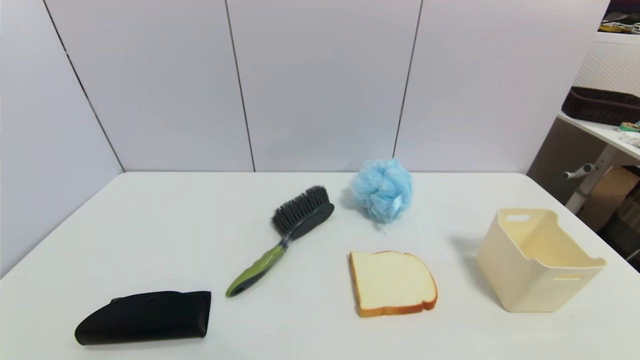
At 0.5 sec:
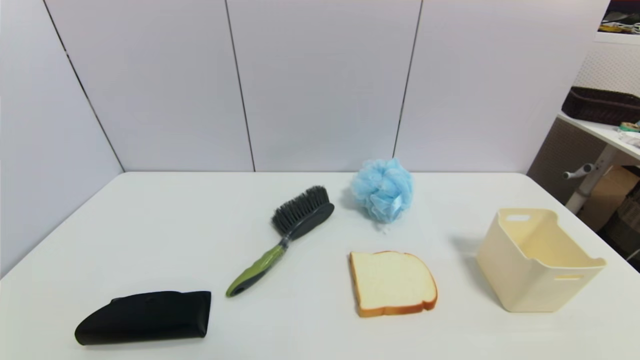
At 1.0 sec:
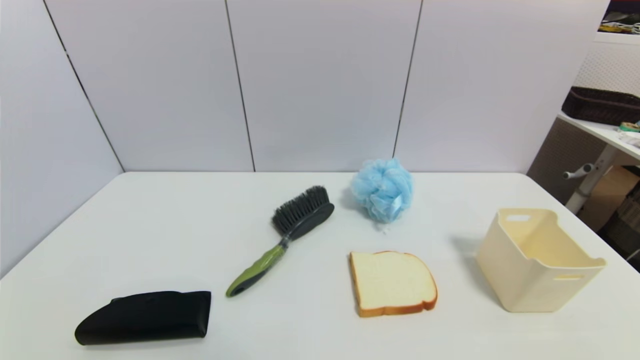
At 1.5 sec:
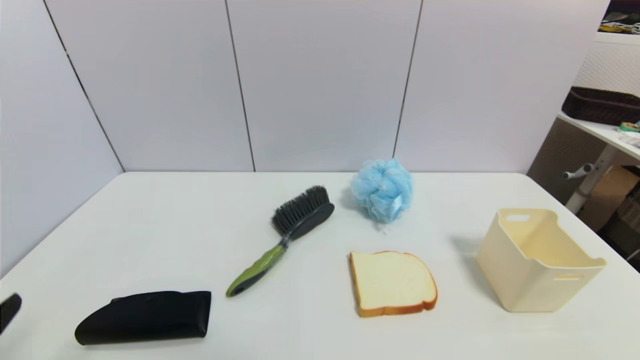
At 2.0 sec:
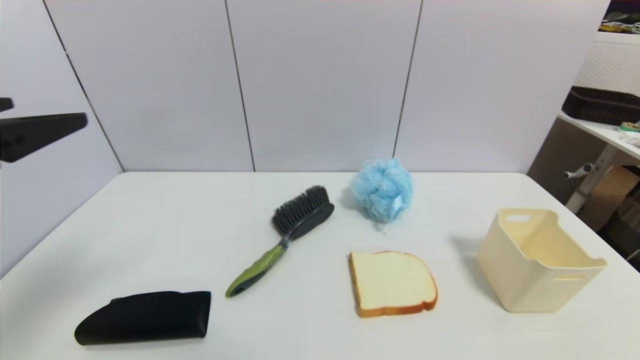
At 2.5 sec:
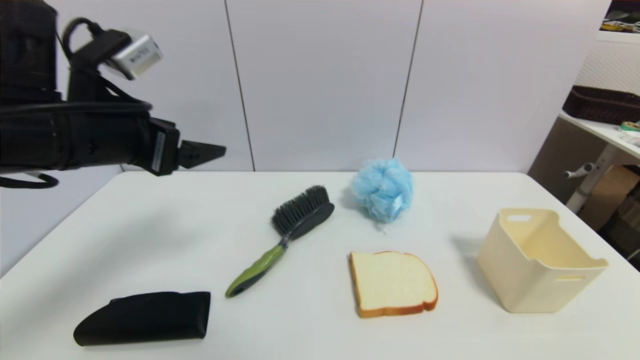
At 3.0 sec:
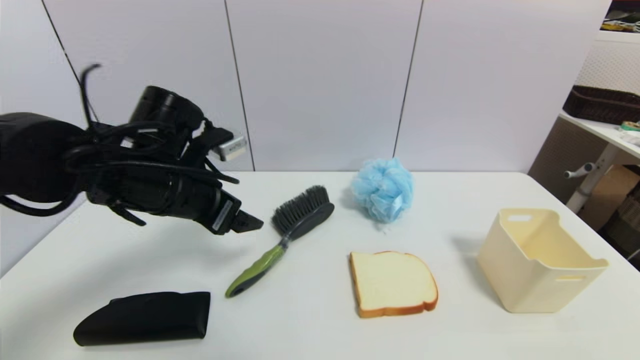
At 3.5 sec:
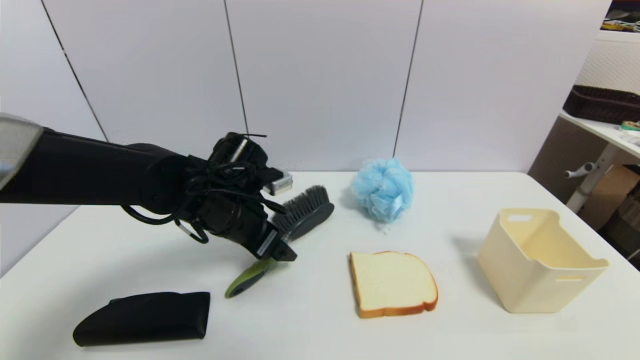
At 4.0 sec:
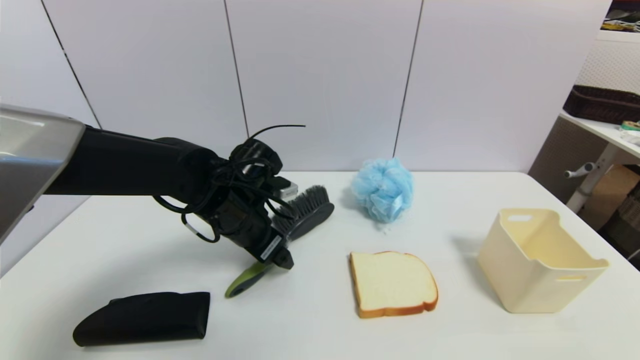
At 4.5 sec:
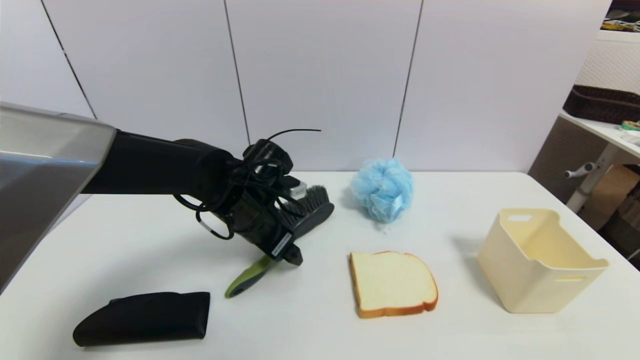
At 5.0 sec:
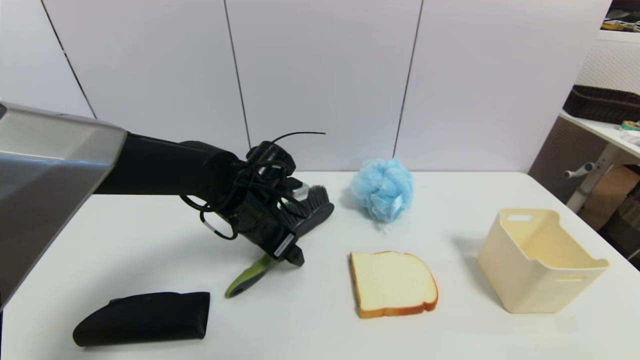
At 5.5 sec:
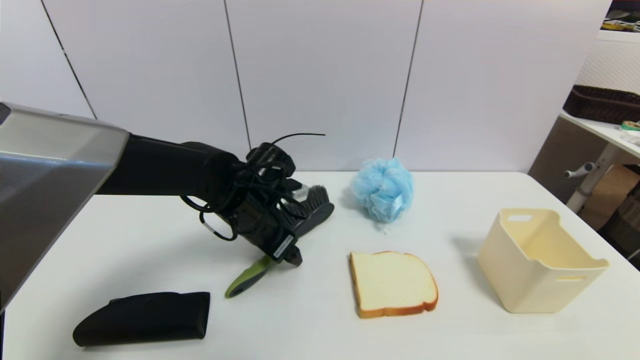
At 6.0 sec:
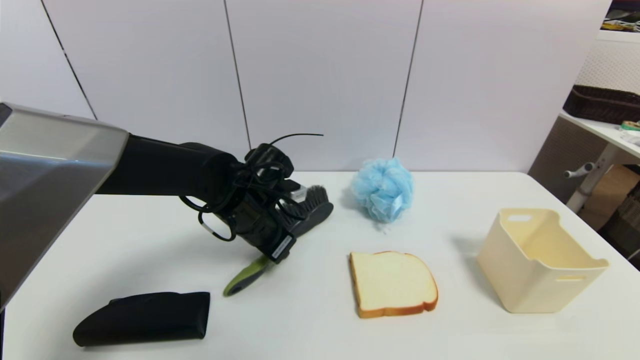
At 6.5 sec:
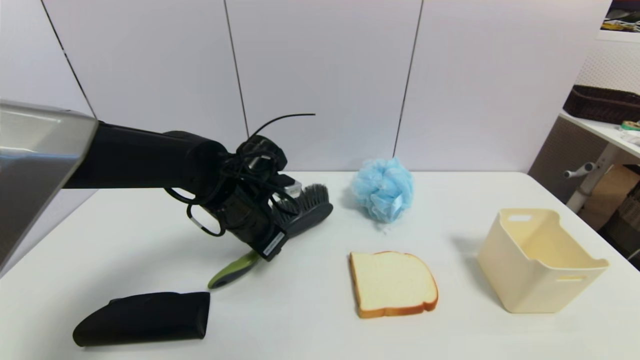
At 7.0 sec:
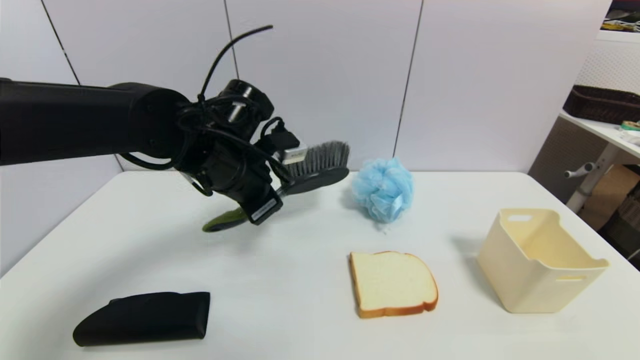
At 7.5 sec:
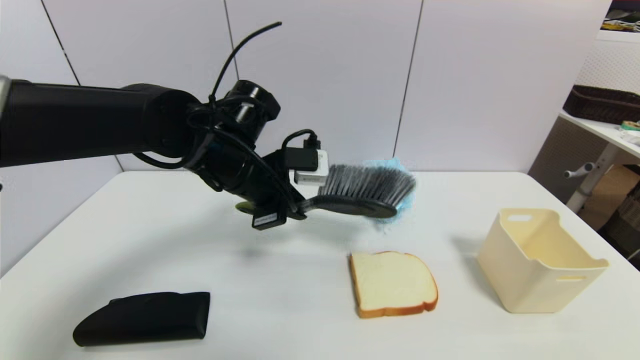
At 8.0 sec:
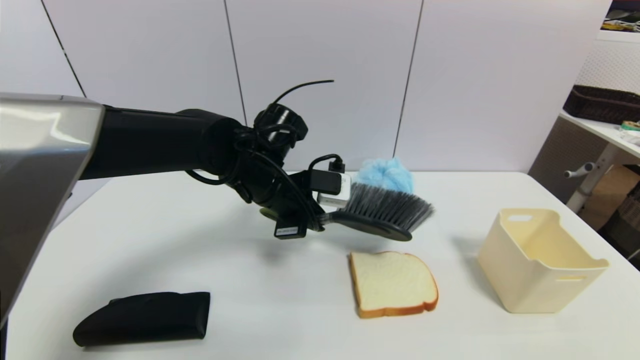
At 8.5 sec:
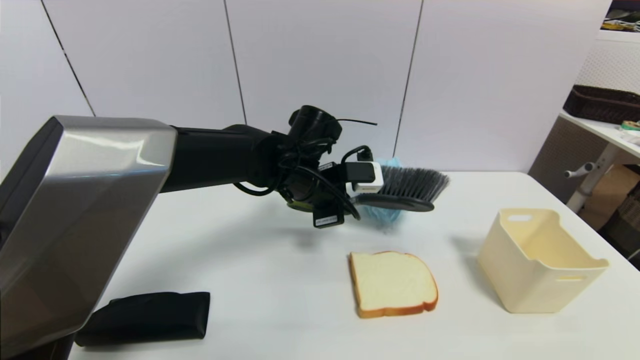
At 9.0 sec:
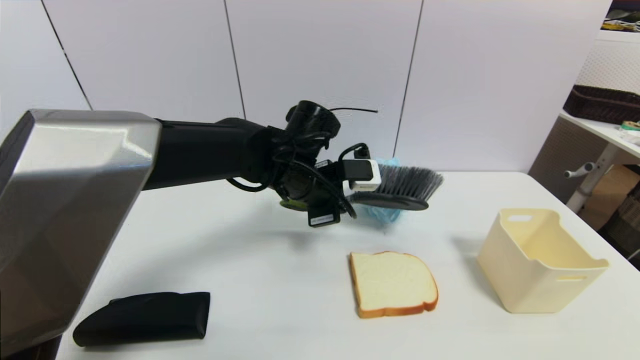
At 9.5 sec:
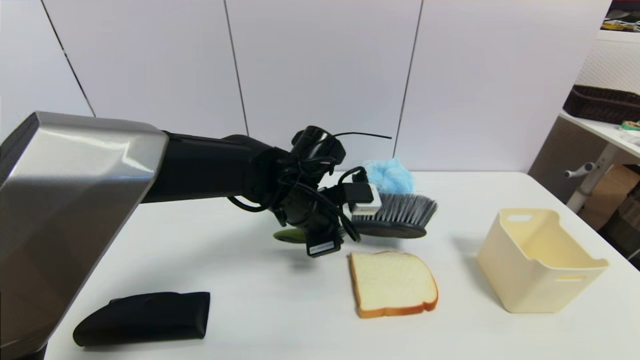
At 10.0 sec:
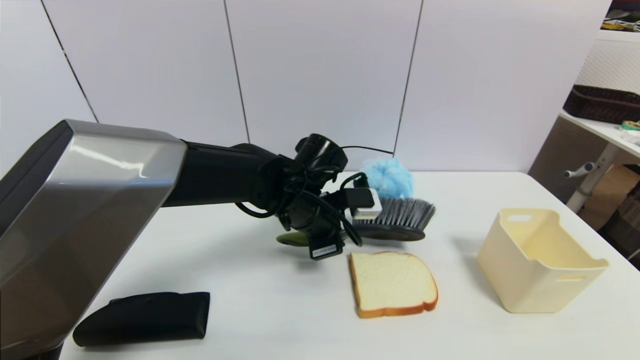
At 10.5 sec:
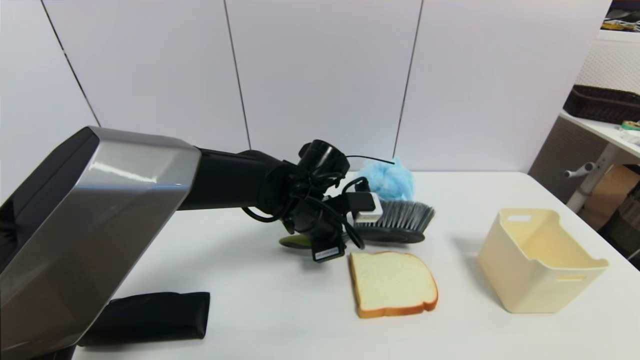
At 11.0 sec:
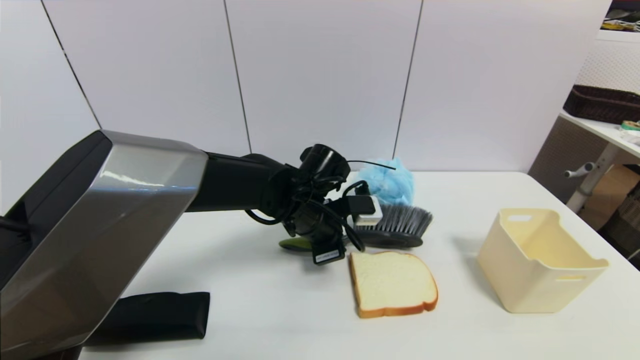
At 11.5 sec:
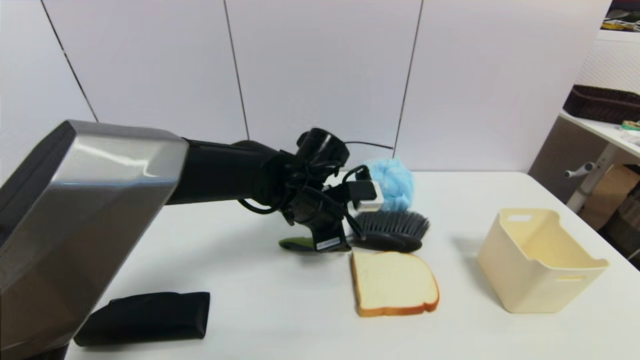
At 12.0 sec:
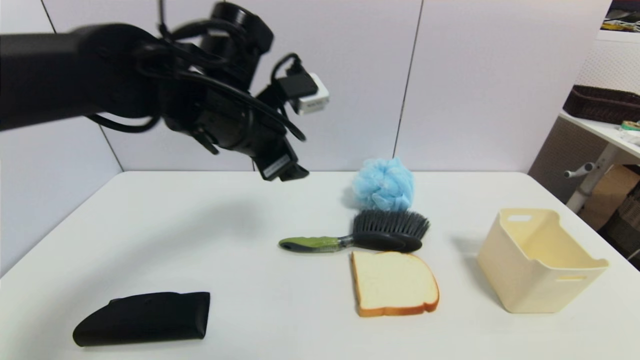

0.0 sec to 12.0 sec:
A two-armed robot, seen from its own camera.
Task of the whole recording: put the brush in the designated position.
Step, 1.5 sec to 6.0 sec: Grasp the brush with left gripper.
Step, 6.5 sec to 11.0 sec: Place the brush on the table with left gripper.
0.0 sec to 2.0 sec: The left gripper is displaced upward and forward by roughly 30 cm.
2.0 sec to 4.0 sec: The left gripper travels forward, downward and to the right by roughly 30 cm.
4.0 sec to 6.0 sec: The left gripper closes its fingers.
6.0 sec to 8.0 sec: The left gripper is displaced upward by about 5 cm.
8.0 sec to 10.0 sec: The left gripper changes place by roughly 5 cm.
10.0 sec to 12.0 sec: The left gripper moves upward and to the left, roughly 15 cm, and opens its fingers.

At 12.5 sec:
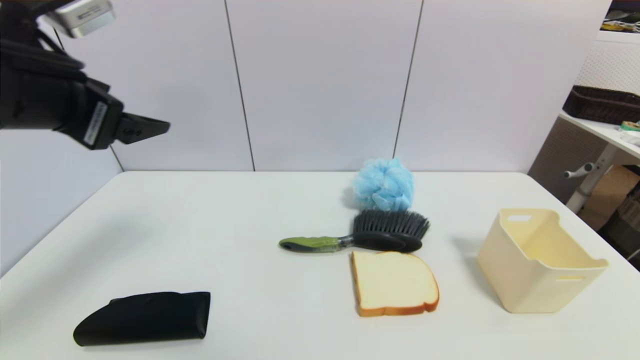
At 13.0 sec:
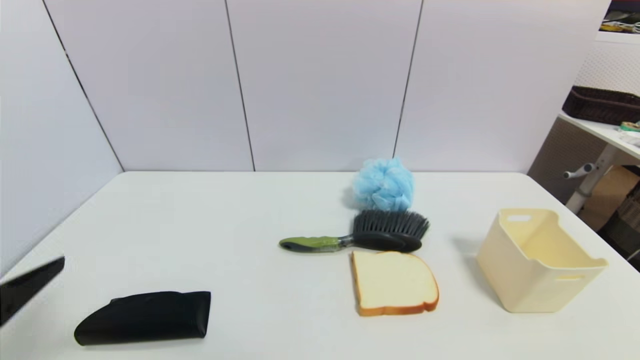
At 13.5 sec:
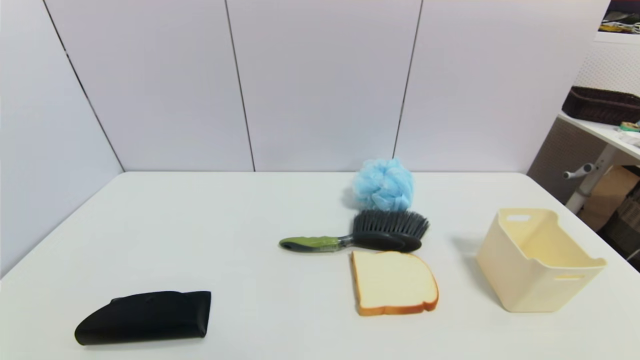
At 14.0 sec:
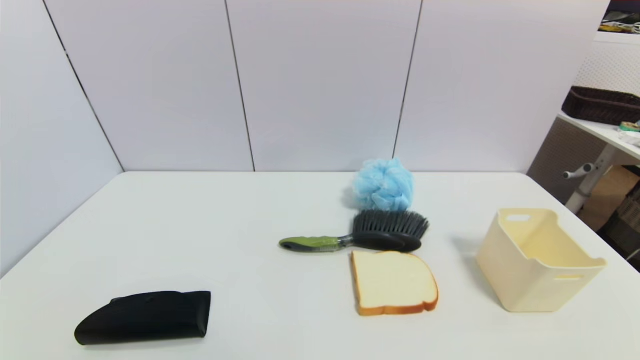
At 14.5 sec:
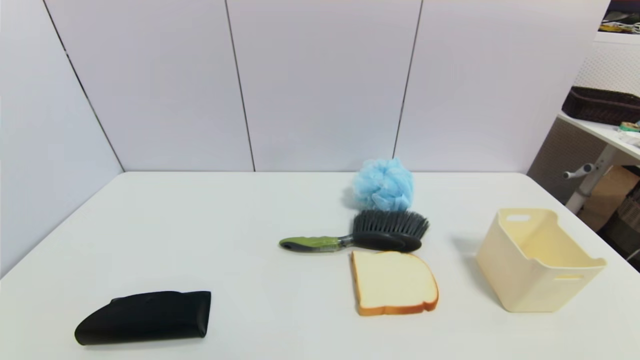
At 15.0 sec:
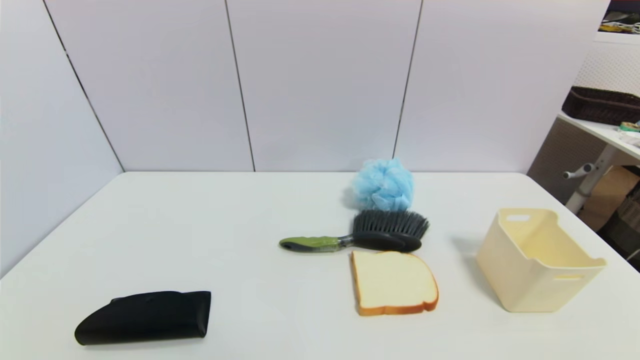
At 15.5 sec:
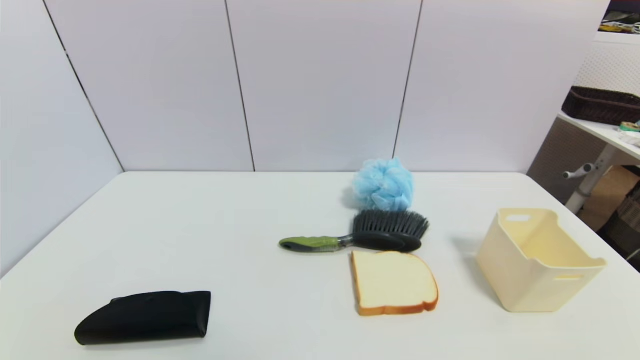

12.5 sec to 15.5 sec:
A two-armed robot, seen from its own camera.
Task of the whole recording: put the brush in the designated position.
12.5 sec to 14.0 sec: The left gripper goes about 35 cm downward and backward.

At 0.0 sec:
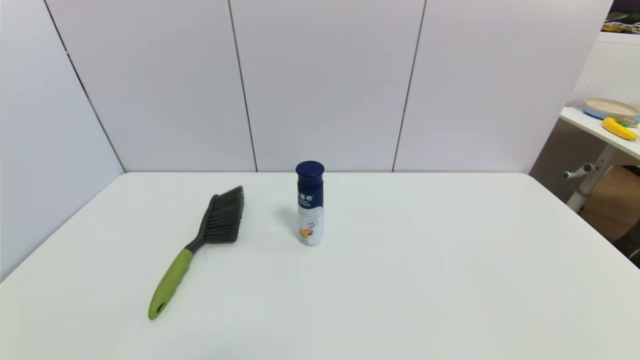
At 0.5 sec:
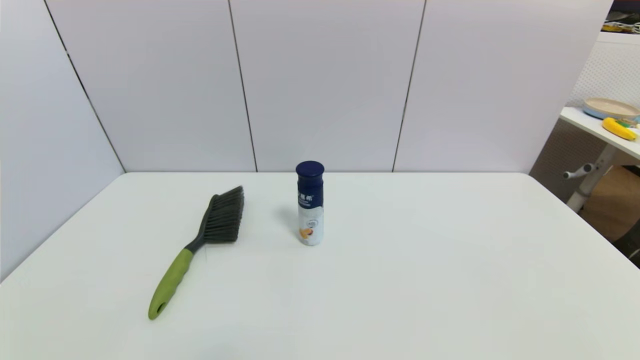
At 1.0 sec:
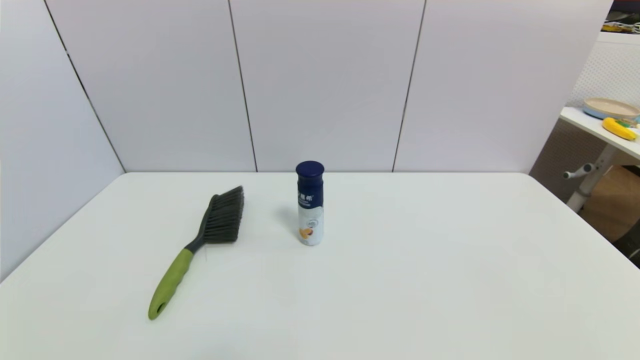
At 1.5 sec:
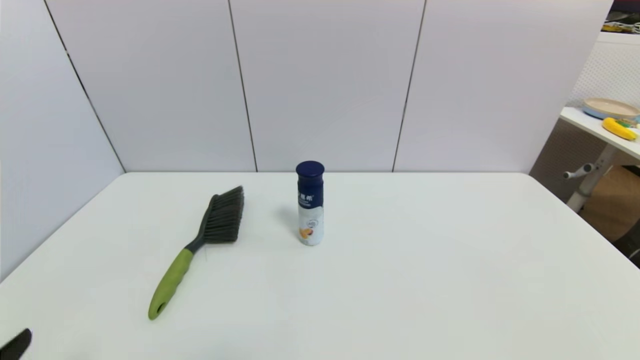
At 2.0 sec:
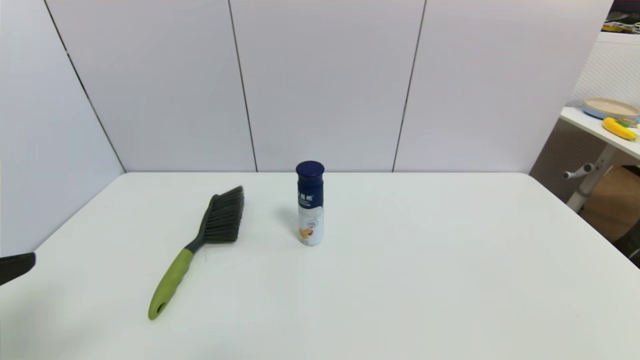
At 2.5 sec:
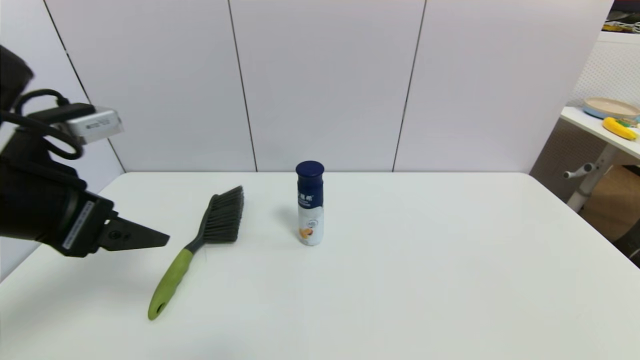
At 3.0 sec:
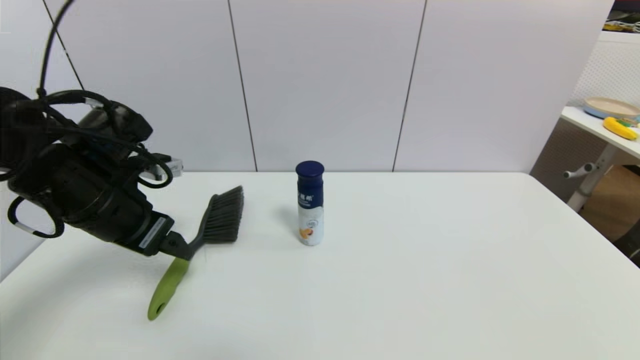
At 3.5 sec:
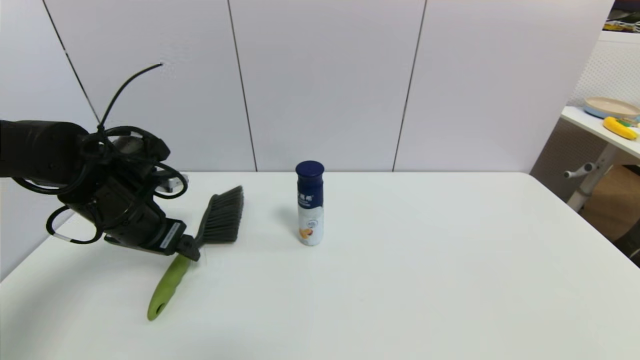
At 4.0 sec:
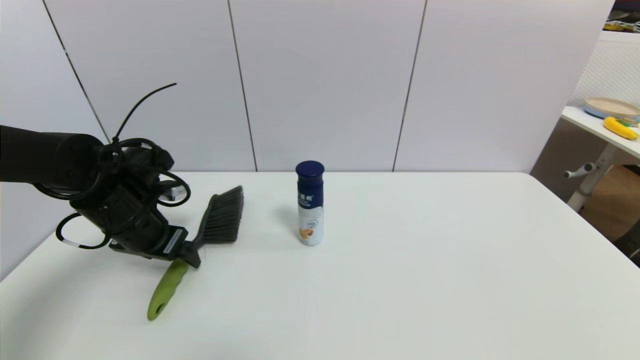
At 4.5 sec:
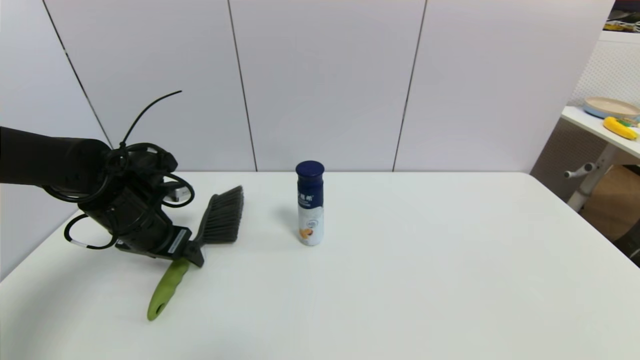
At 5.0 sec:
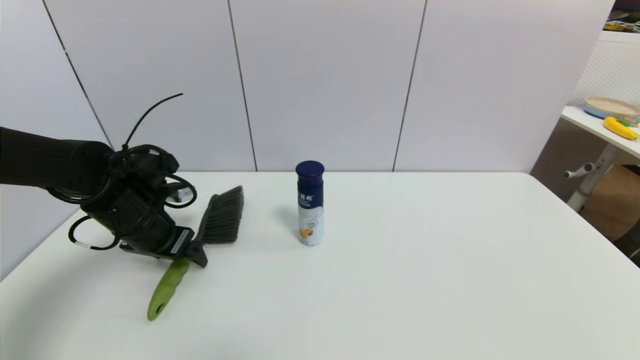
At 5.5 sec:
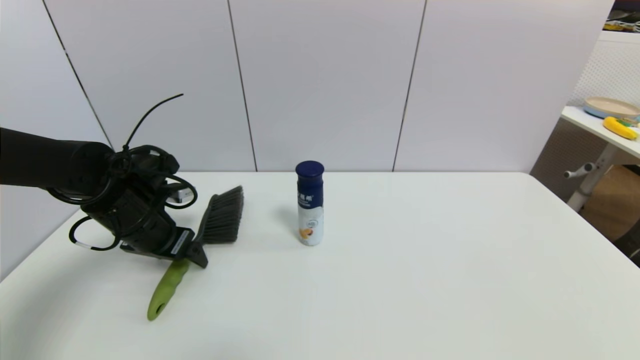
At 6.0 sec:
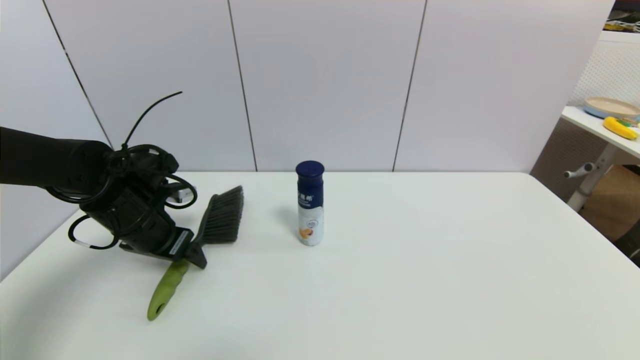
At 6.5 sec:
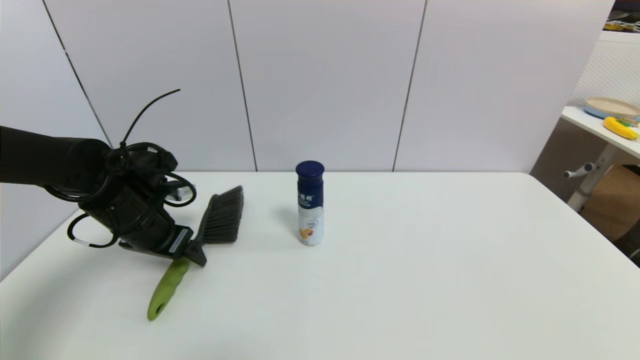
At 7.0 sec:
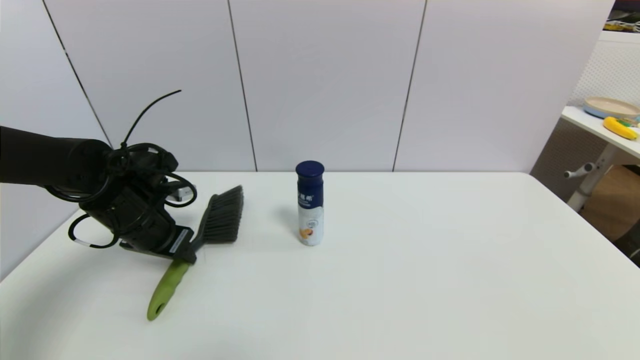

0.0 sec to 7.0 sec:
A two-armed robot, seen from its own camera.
Task of the whole recording: put the brush in the designated position.
0.0 sec to 2.0 sec: The left gripper moves upward, approximately 25 cm.
2.0 sec to 3.5 sec: The left gripper goes about 30 cm forward and downward.
3.5 sec to 5.0 sec: The grippers move only a little.
5.0 sec to 7.0 sec: The left gripper closes.
